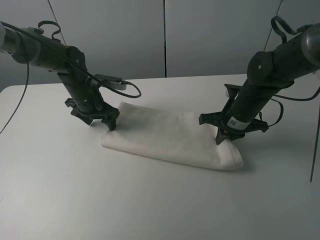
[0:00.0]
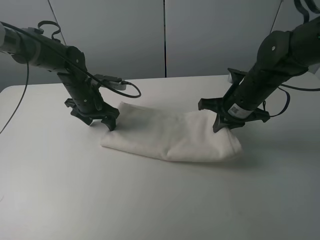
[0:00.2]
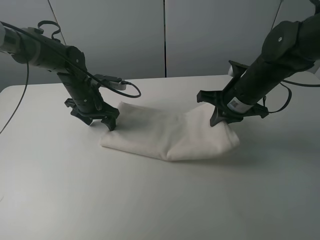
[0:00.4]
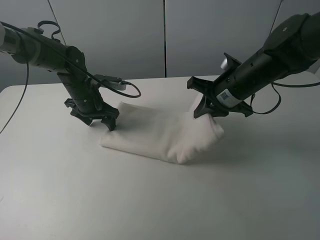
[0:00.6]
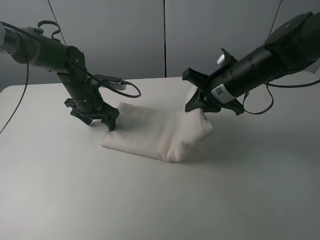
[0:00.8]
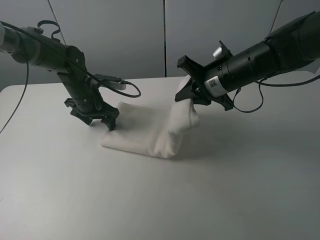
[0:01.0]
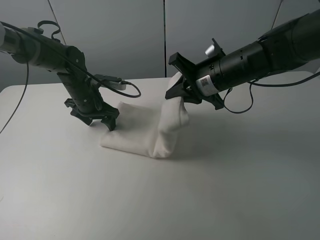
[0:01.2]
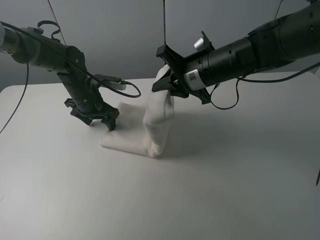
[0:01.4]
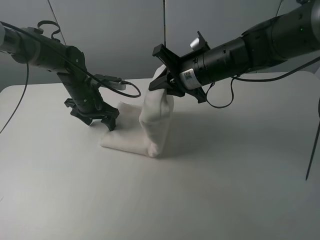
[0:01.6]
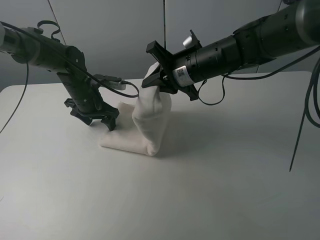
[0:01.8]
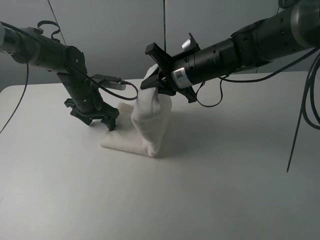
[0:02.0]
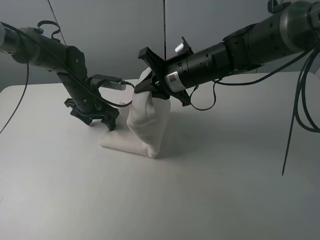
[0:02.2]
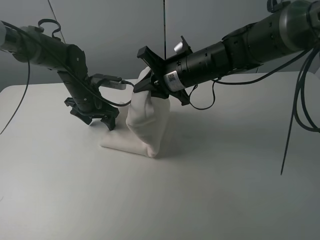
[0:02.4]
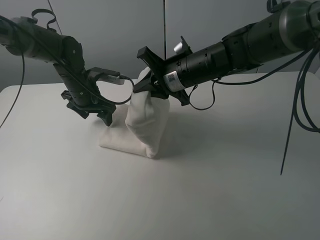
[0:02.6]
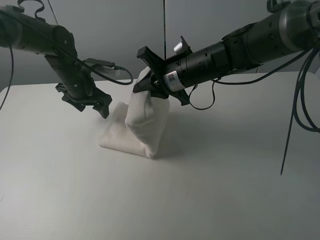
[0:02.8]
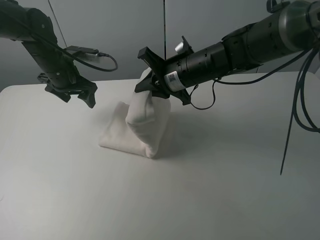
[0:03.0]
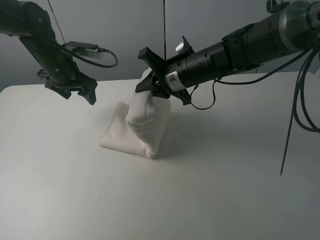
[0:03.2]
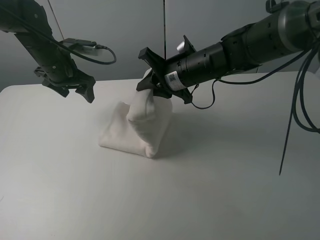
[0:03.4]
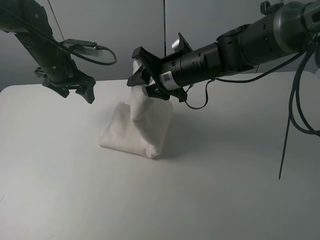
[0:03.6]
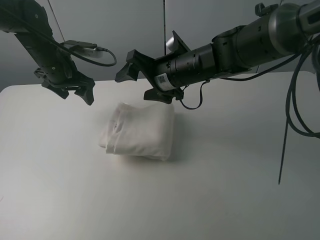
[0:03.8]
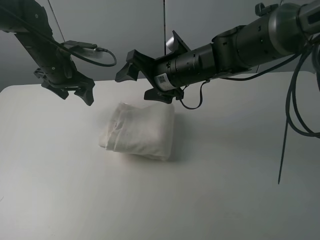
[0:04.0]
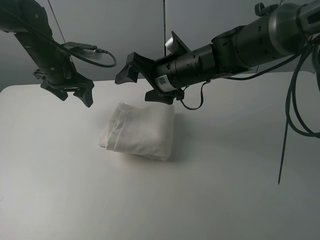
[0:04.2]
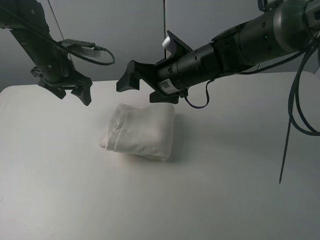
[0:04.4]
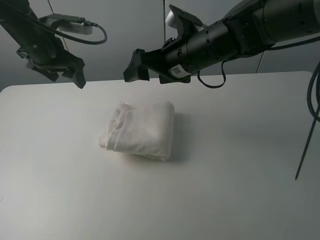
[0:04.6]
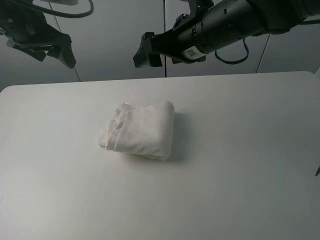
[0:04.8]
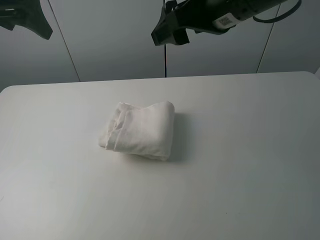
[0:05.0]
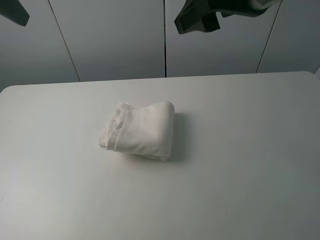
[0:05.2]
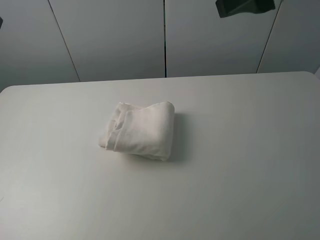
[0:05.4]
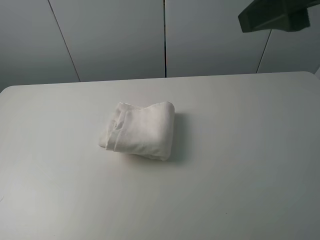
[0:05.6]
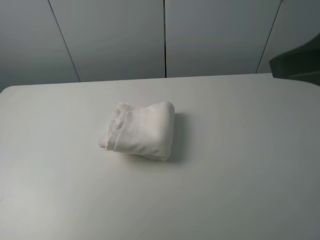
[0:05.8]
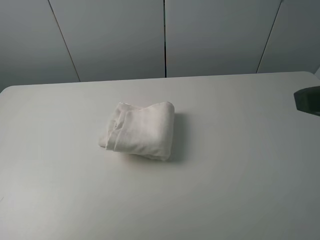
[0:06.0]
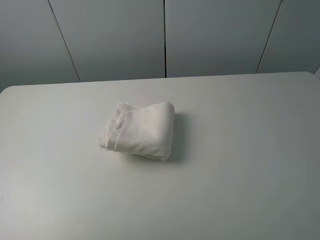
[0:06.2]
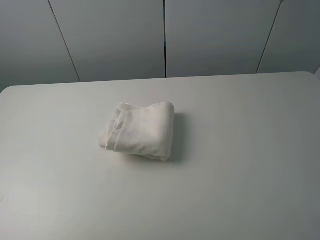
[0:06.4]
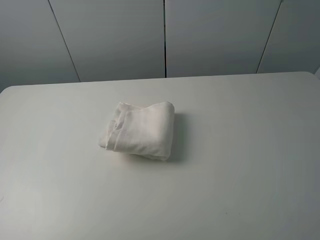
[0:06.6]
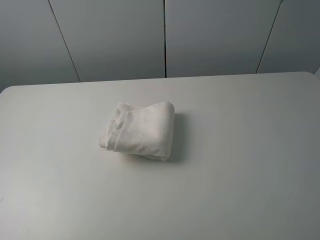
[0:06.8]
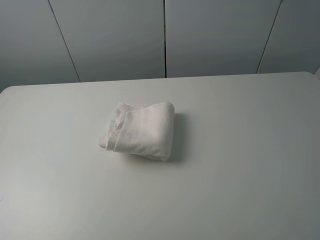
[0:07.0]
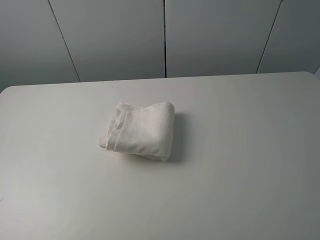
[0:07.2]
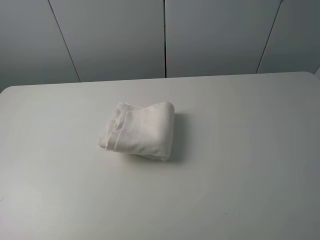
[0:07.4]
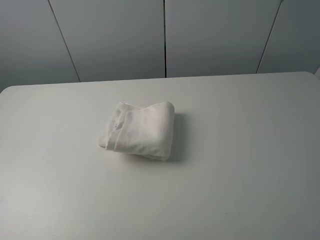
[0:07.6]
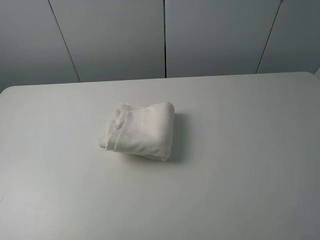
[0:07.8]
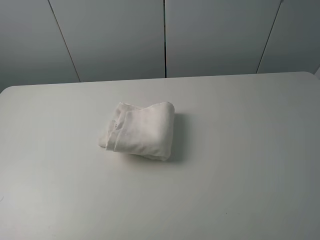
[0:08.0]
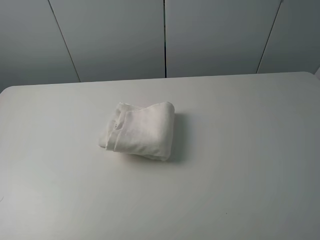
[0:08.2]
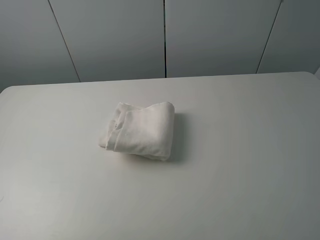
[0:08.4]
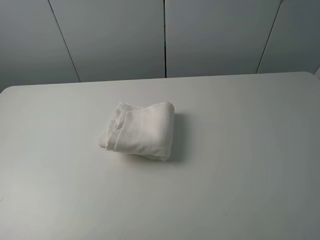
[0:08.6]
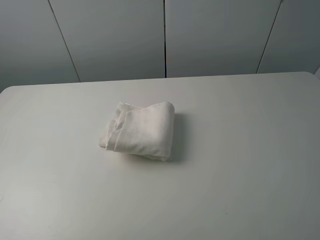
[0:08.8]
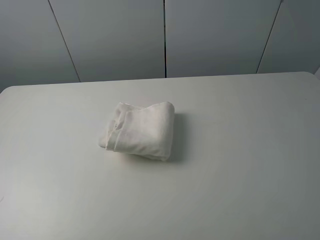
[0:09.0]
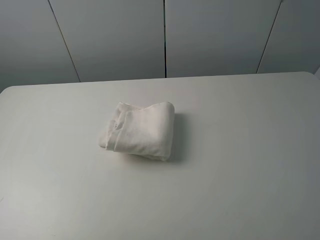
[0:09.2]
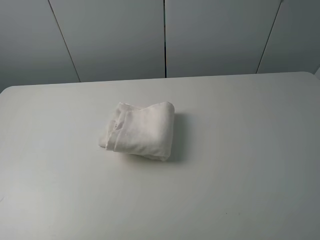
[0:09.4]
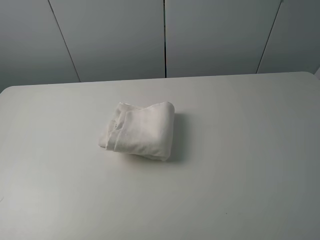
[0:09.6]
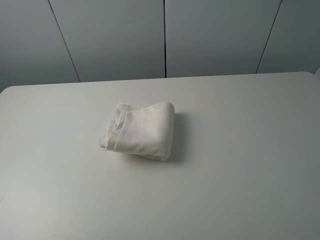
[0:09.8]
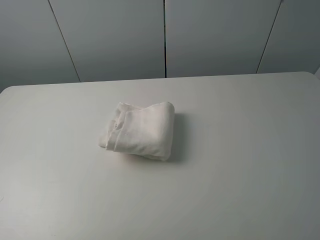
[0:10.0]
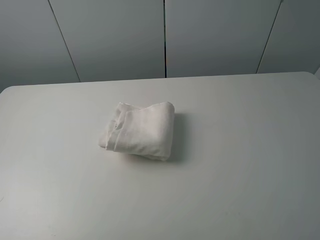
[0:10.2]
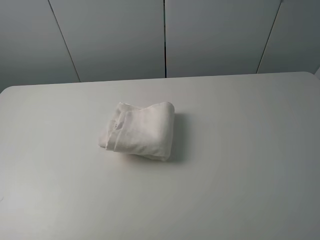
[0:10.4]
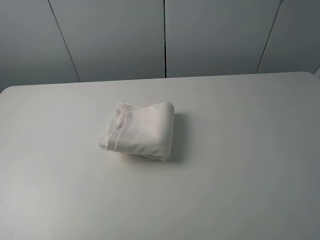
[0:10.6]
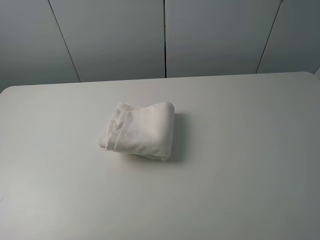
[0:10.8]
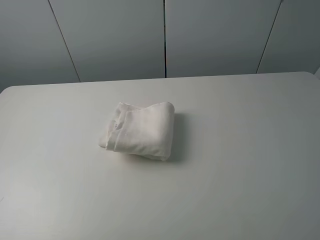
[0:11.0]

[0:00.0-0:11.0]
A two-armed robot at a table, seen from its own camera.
Task of the whole recording: fold the towels on the table.
Step, 0:00.0 to 0:03.8: Fold the white towel from right to left with right gripper.
0:00.0 to 0:01.6: The right gripper heads to the left and upward, covering about 10 cm.
0:01.6 to 0:03.2: The left gripper travels upward by approximately 10 cm.
0:03.2 to 0:04.8: The grippers both shift upward by about 10 cm. The right gripper opens its fingers.
0:04.8 to 0:06.2: The right gripper travels backward and to the right by roughly 30 cm. The left gripper shifts about 30 cm backward and to the left.
0:09.4 to 0:11.0: The two grippers keep their place.

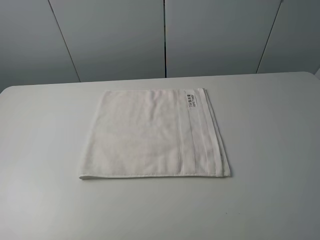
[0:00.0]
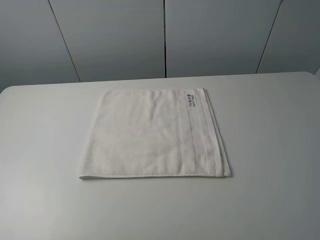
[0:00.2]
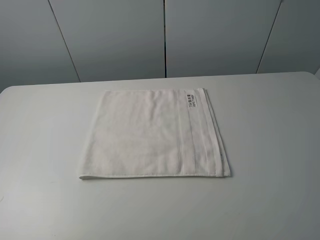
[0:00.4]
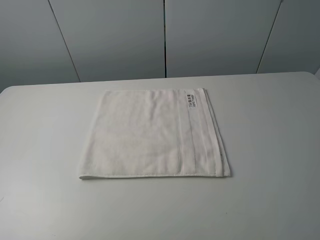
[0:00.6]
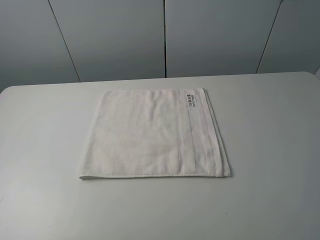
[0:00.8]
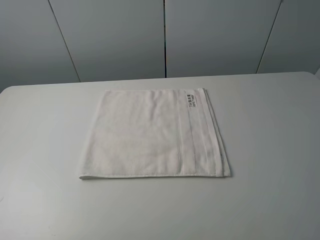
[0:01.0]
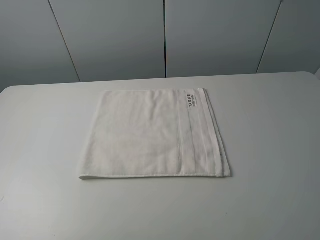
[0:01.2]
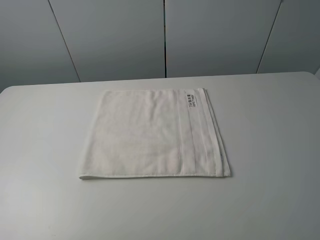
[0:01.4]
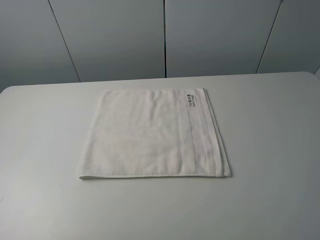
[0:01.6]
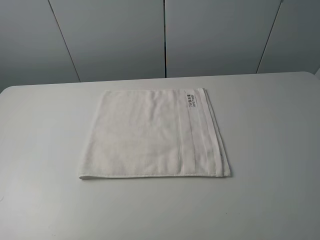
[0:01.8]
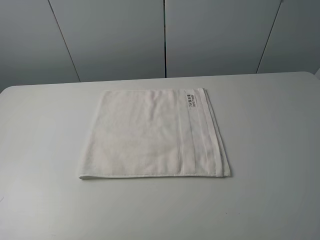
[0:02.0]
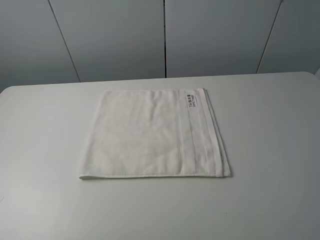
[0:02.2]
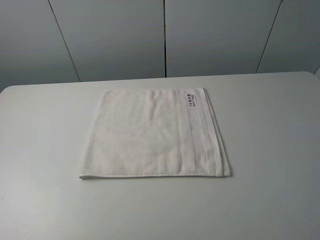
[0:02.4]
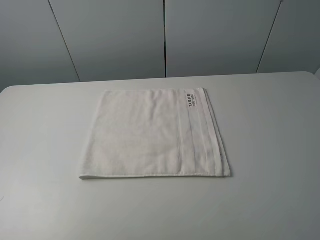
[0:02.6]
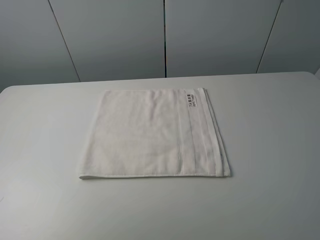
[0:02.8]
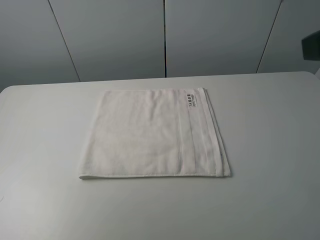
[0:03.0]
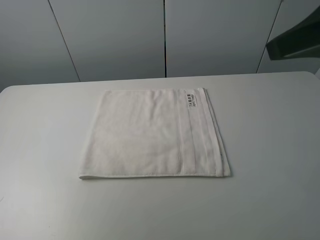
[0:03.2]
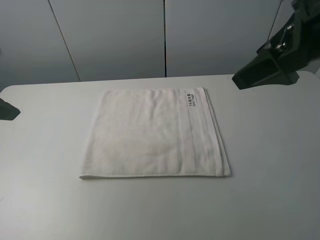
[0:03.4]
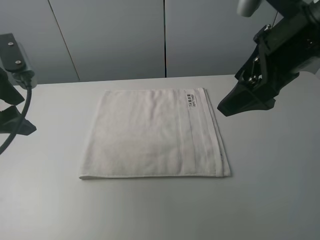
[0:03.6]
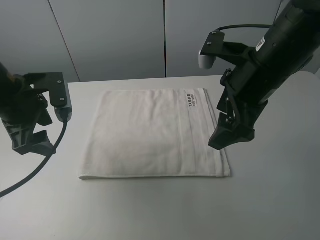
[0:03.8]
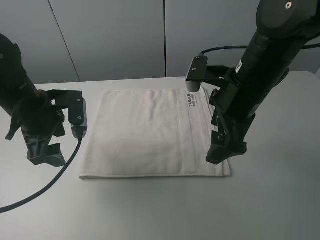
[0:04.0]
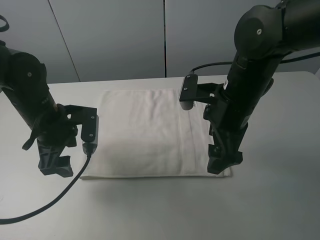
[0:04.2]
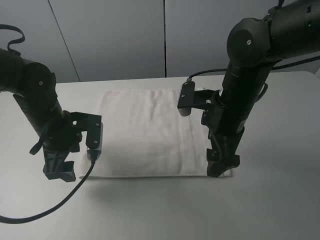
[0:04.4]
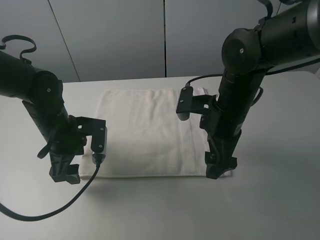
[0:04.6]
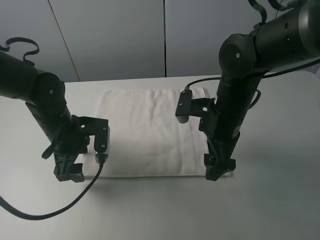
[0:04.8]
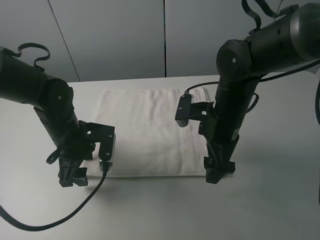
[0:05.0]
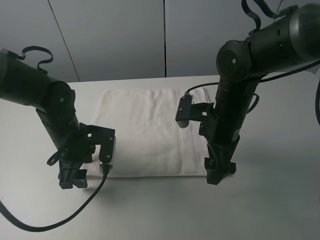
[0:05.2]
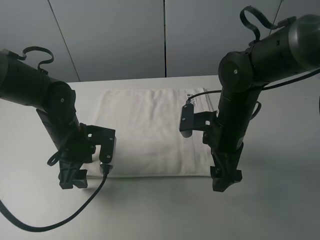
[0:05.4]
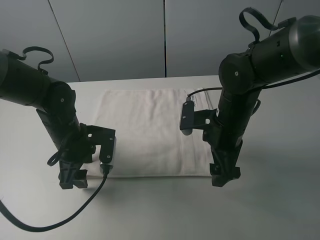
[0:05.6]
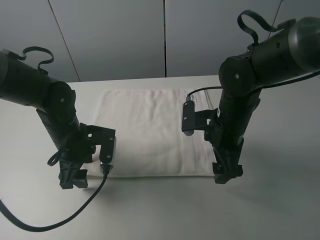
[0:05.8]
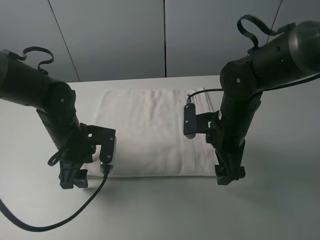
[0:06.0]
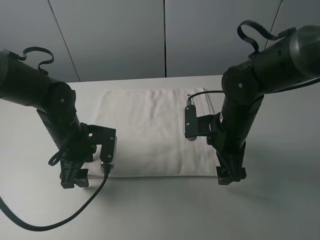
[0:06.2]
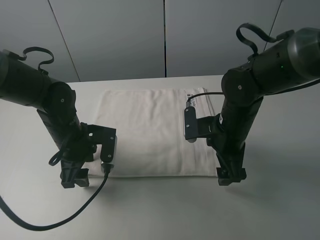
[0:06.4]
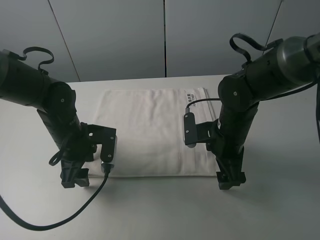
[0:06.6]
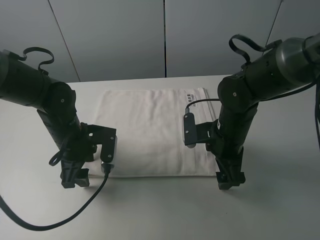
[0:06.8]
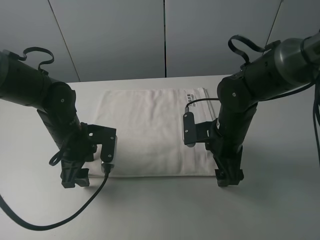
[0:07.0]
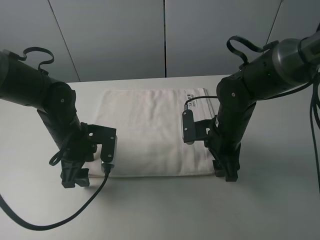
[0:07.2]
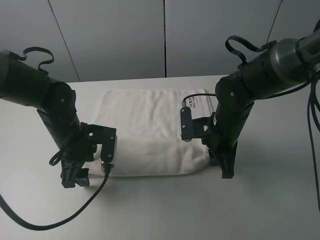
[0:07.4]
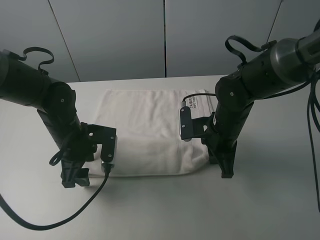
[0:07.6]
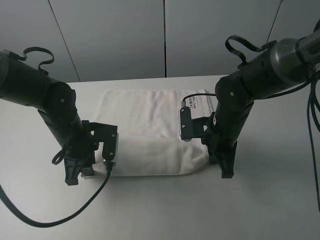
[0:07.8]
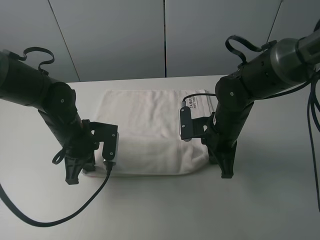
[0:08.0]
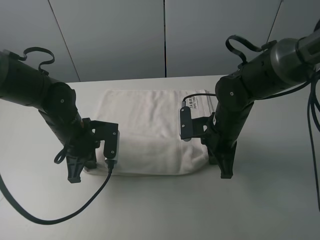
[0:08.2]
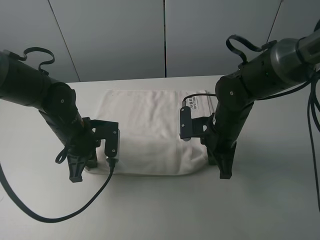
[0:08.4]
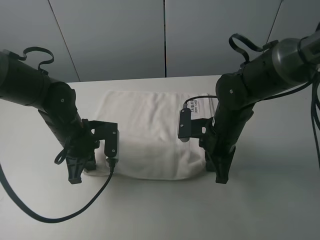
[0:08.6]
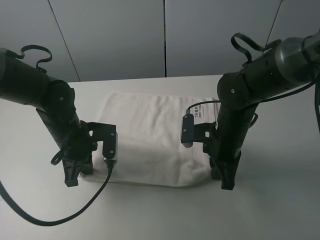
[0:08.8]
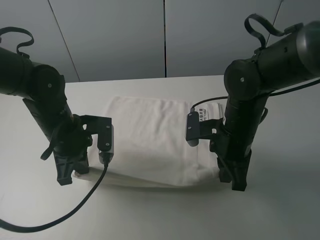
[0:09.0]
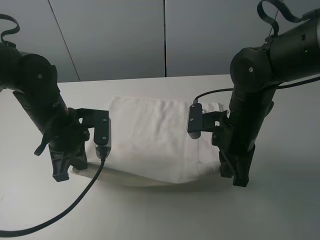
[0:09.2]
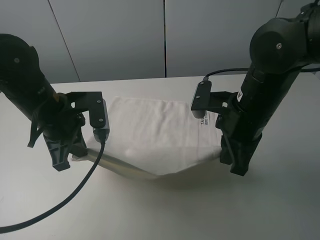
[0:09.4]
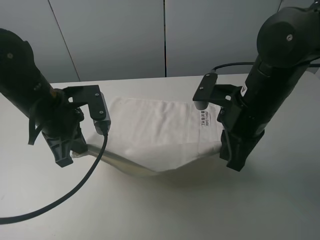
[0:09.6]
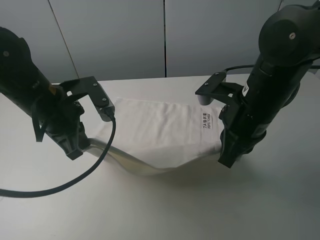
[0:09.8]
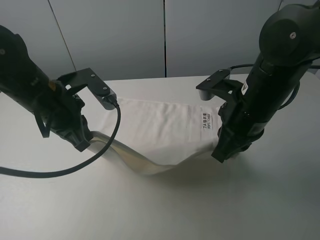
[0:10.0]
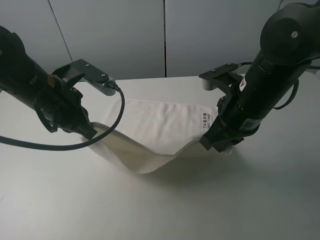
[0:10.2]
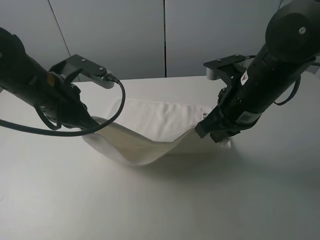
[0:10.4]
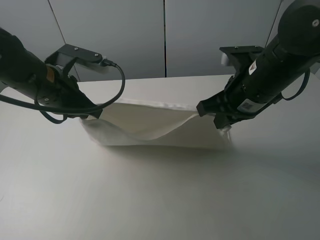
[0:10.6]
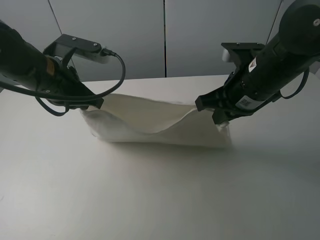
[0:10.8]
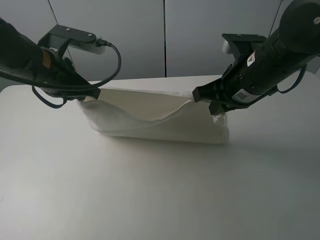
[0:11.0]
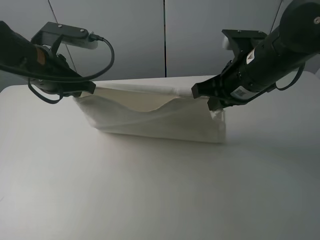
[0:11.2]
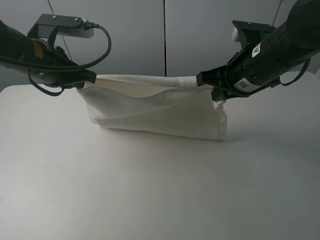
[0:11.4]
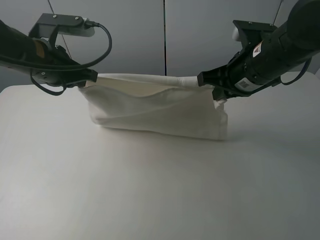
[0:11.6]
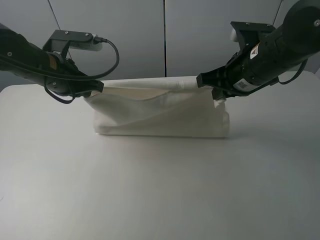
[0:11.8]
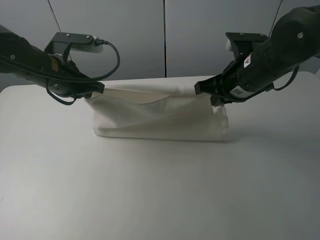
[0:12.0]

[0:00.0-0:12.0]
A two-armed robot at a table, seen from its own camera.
Task of the whole recording: fold the towels on the table.
Step, 0:00.0 to 0:08.0: Grasp the white towel with the right gripper.
0:00.0 to 0:01.6: Neither gripper changes place.
0:03.0 to 0:04.4: The left gripper goes some 25 cm downward and to the right; the right gripper heads downward, to the left and forward, covering some 25 cm.
0:04.4 to 0:06.0: The right gripper shifts by some 5 cm.
0:06.0 to 0:07.6: The right gripper closes up.
0:07.6 to 0:09.0: The left gripper closes up. Meanwhile the right gripper shifts by about 5 cm.
0:09.0 to 0:10.4: Both grippers move upward, approximately 10 cm.
0:10.4 to 0:12.0: The two grippers go roughly 5 cm forward.
